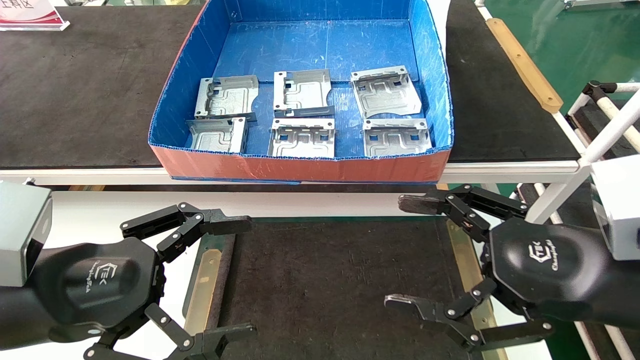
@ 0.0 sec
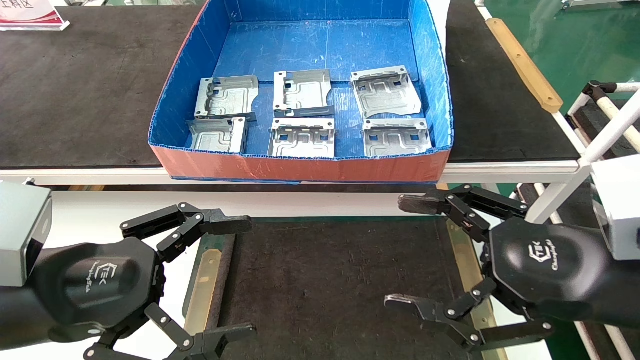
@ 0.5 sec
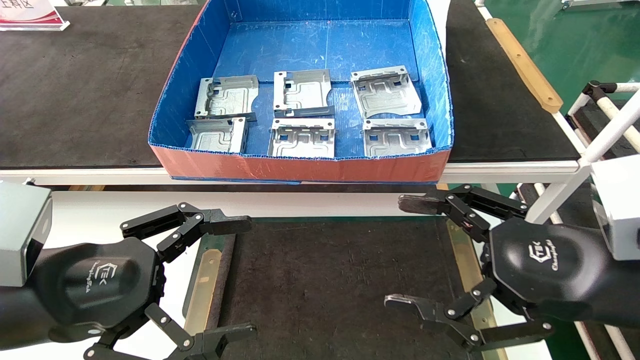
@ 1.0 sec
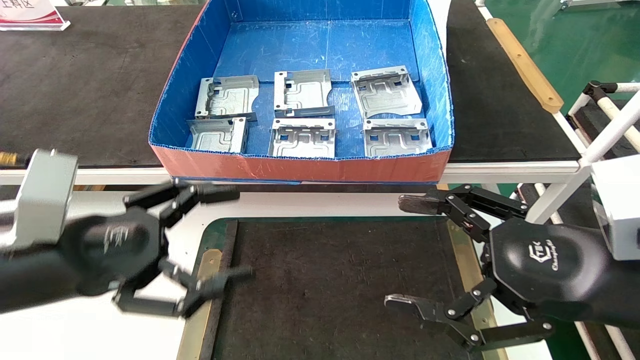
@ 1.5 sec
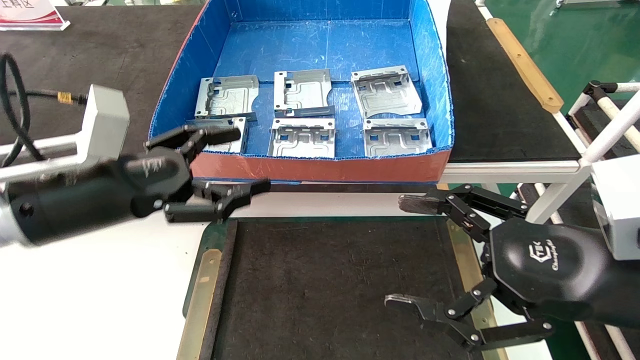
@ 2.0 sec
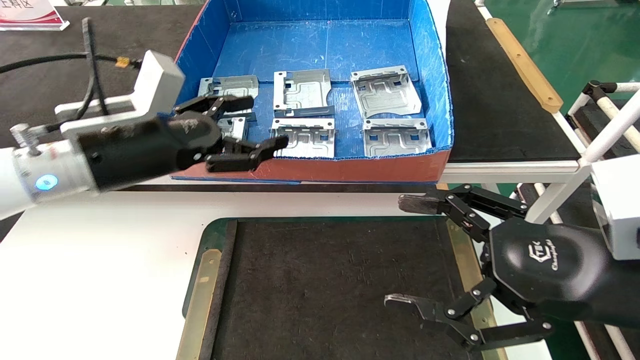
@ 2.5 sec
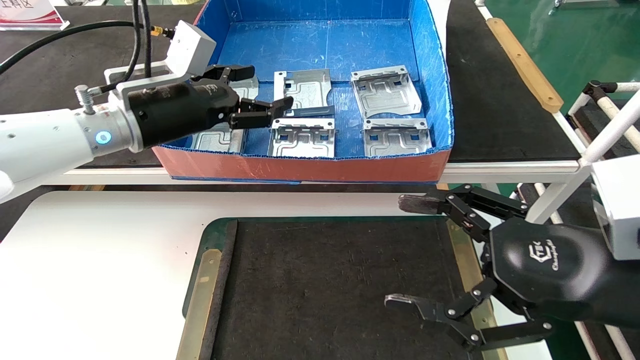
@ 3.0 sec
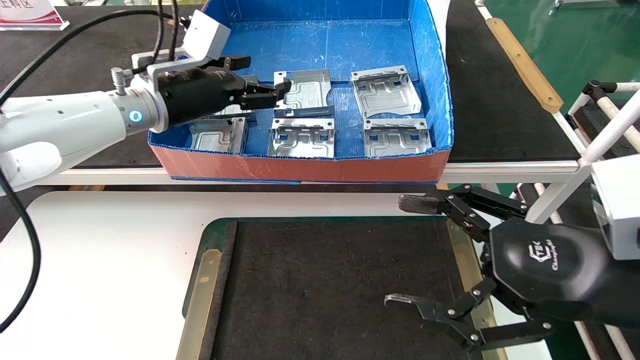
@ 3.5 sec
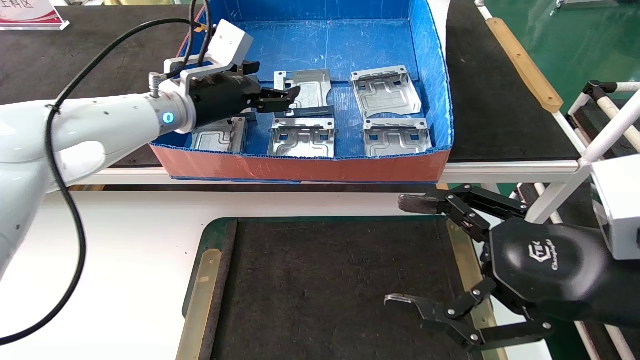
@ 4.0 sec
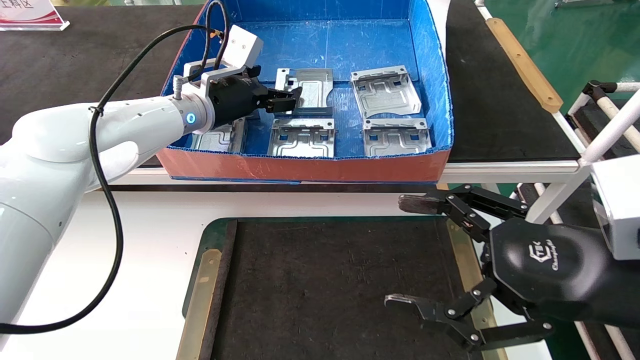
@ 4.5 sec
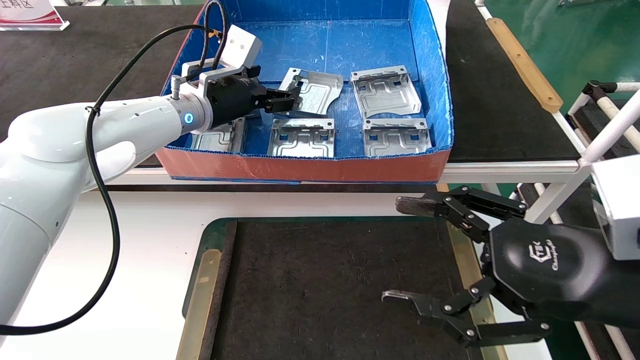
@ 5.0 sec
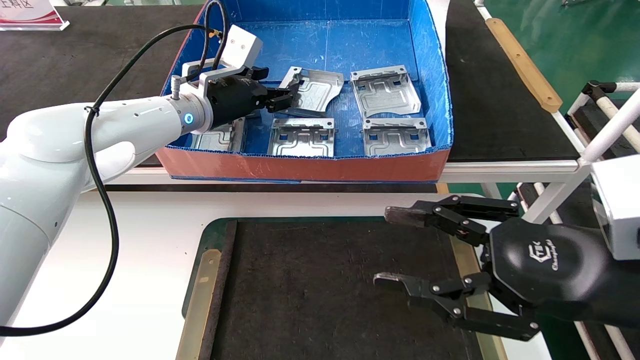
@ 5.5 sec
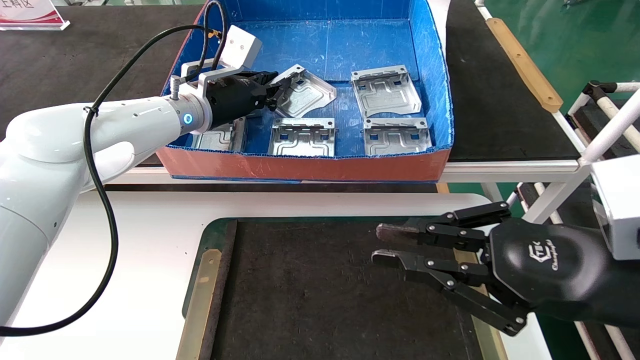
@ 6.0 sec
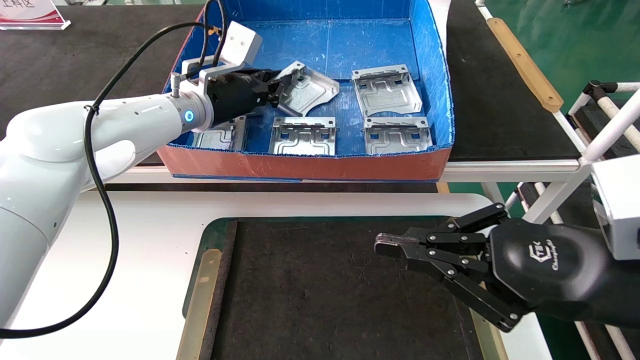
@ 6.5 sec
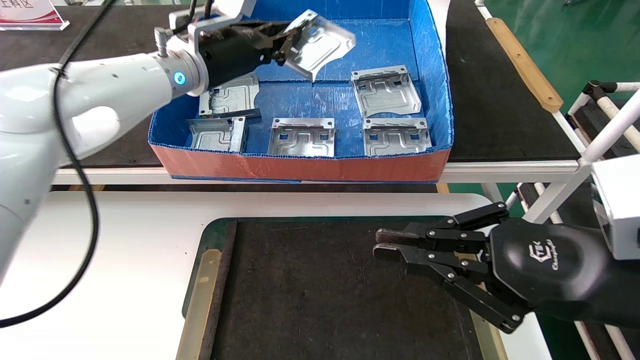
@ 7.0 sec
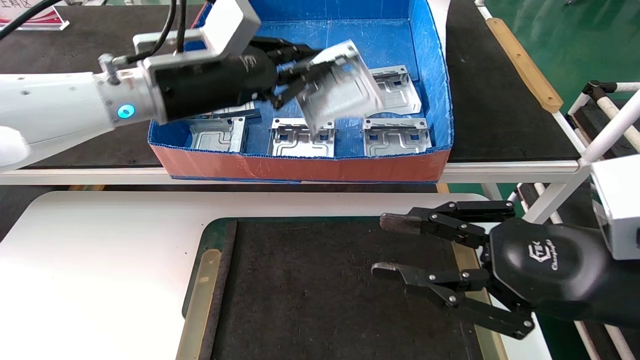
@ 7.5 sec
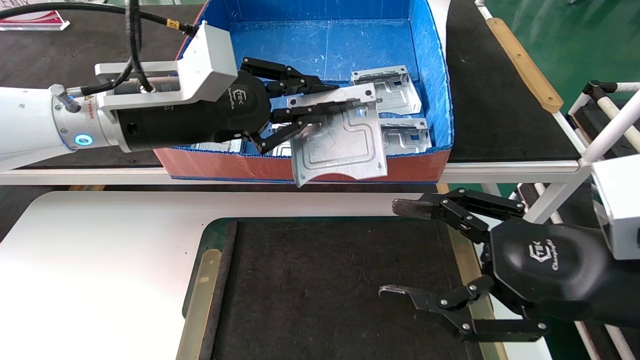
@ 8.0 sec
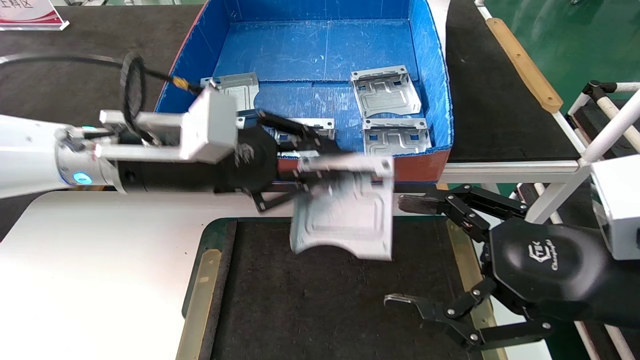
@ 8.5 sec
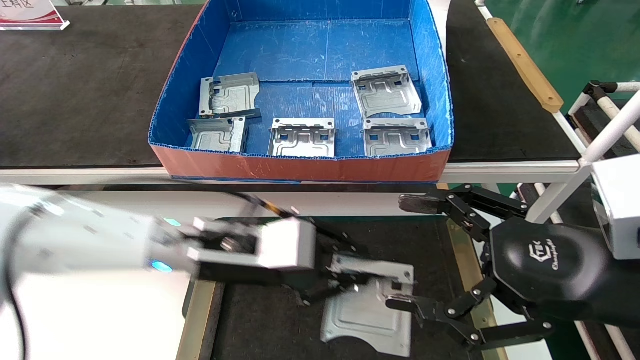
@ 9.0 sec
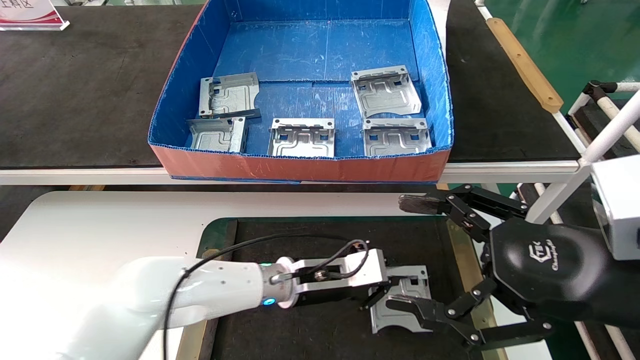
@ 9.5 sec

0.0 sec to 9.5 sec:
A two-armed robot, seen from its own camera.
Task of the whole recording: take the accessories out of the box and place them on the table.
Step, 1.5 sec to 6.0 sec: Pick up the hard drive bracket from the feeding area.
0.0 sec to 2.0 sec: The left gripper travels forward by some 10 cm.
2.0 sec to 4.0 sec: The left gripper goes some 20 cm forward, to the right and upward.
4.0 sec to 5.5 sec: The grippers move only a little.
5.5 sec to 7.5 sec: The right gripper closes its fingers, while the left gripper shifts some 10 cm backward, and closes its fingers.
7.5 sec to 9.5 sec: The left gripper heads downward and to the right, covering some 30 cm, while the right gripper opens up.

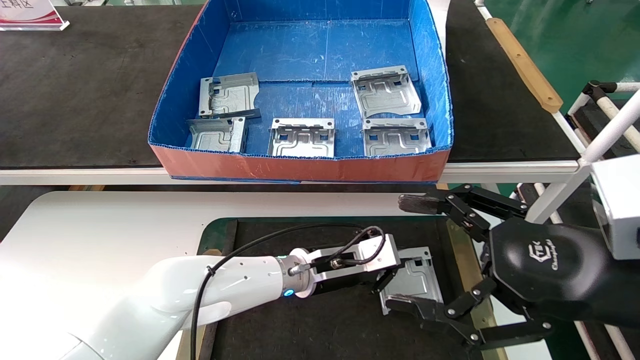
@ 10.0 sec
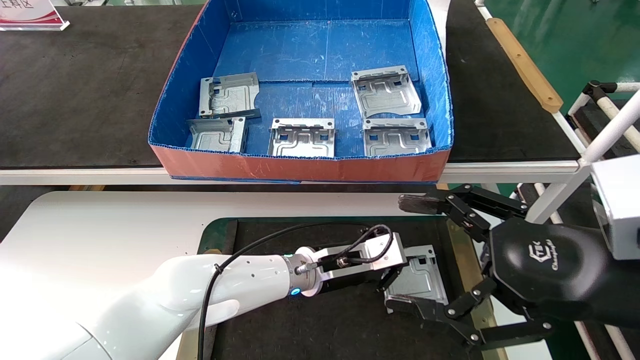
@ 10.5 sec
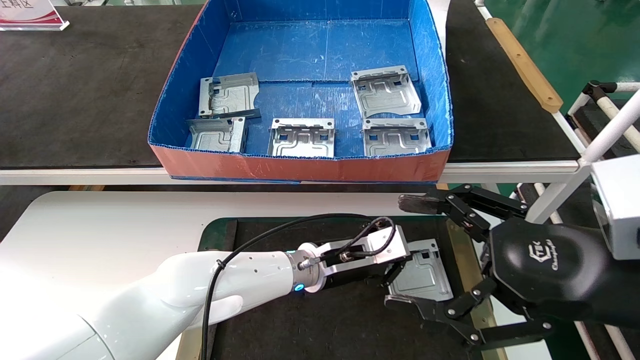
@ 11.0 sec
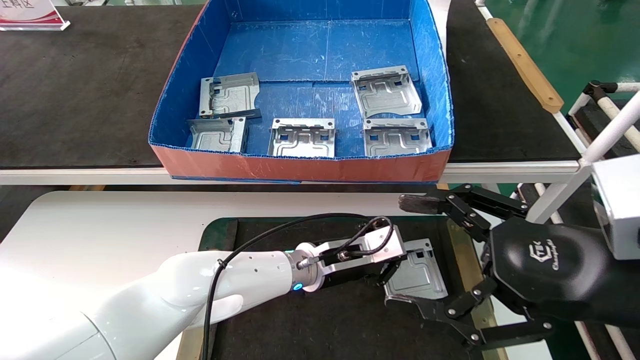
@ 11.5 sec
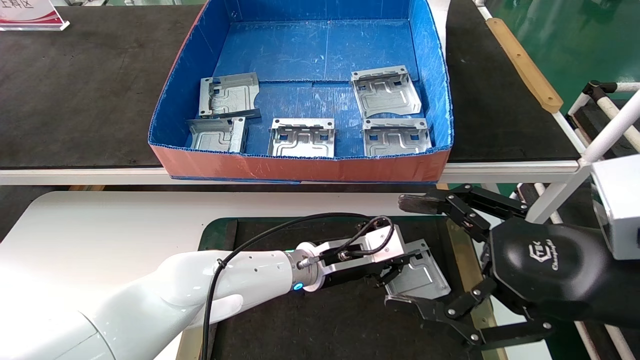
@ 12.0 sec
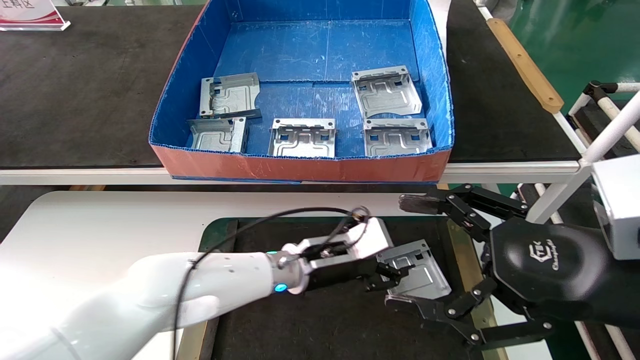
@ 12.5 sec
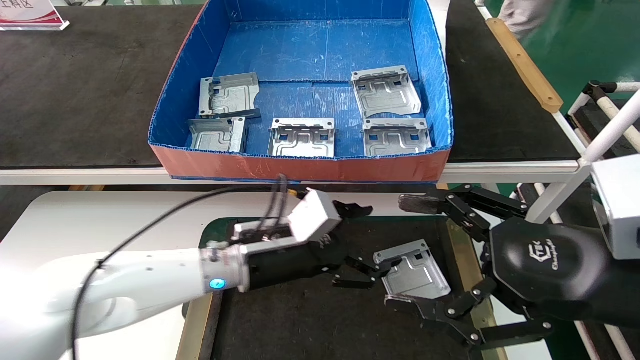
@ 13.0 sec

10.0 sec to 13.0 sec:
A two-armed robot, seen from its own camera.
Task of the whole recording: take the accessories out of the box and place them on the table.
Step, 10.0 sec to 12.0 sec: Place the hard drive bracket into the box.
10.0 sec to 11.5 sec: The grippers stay close to where they were, moving slightly.
11.5 sec to 13.0 sec: The left gripper shifts approximately 10 cm to the left and backward, and opens its fingers.
